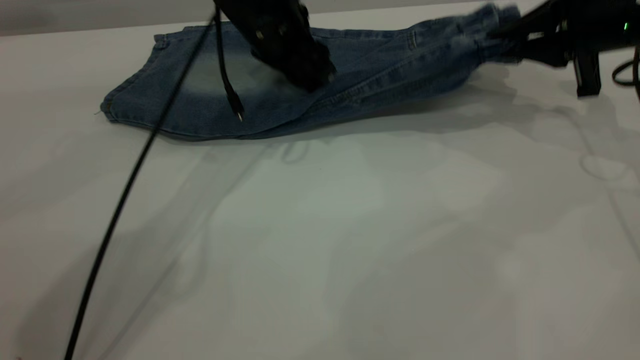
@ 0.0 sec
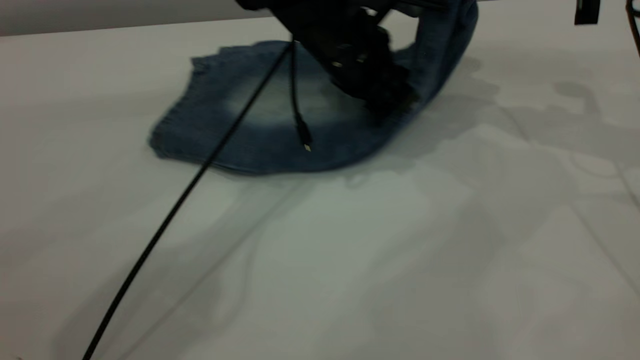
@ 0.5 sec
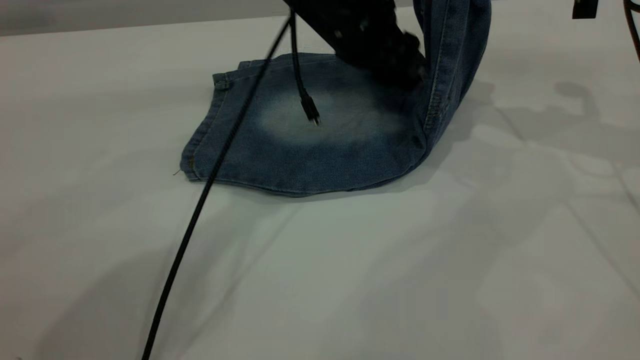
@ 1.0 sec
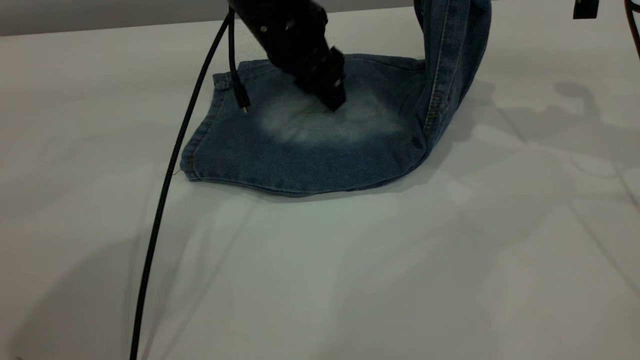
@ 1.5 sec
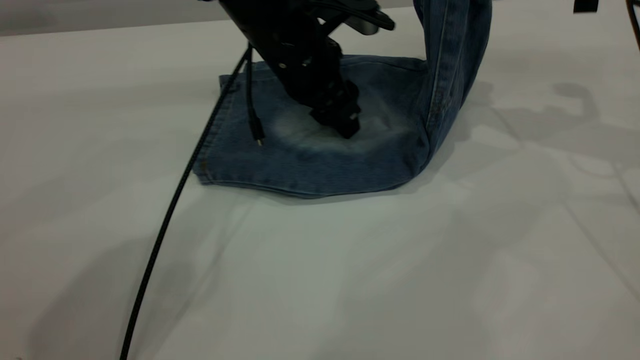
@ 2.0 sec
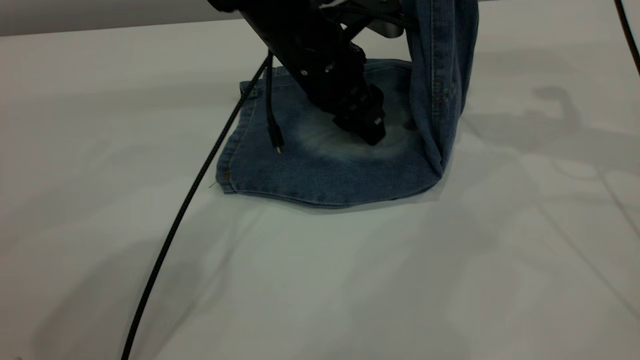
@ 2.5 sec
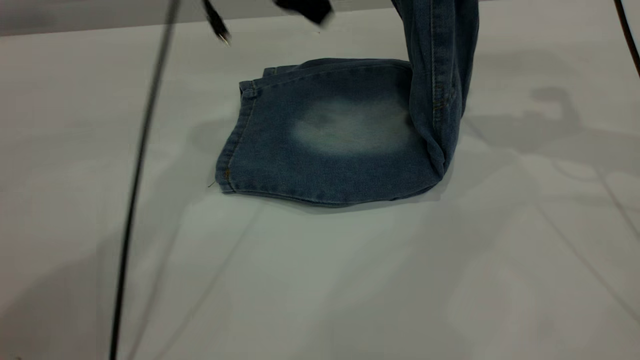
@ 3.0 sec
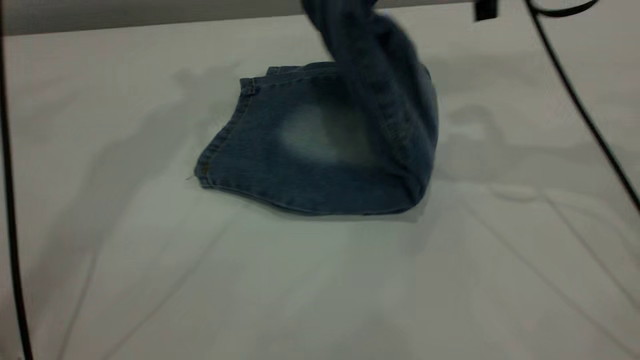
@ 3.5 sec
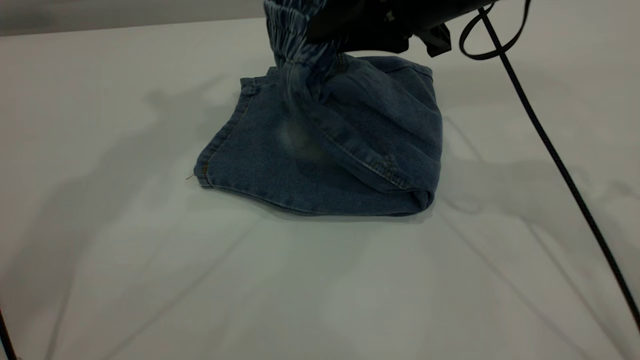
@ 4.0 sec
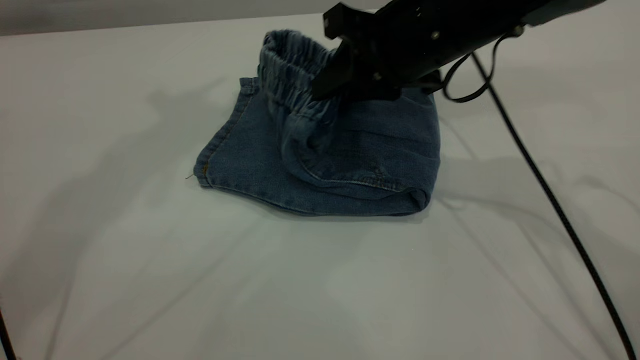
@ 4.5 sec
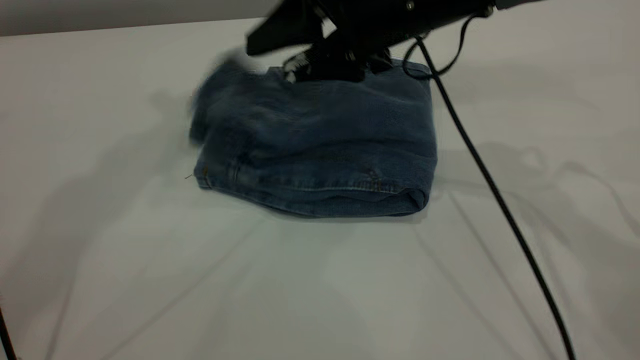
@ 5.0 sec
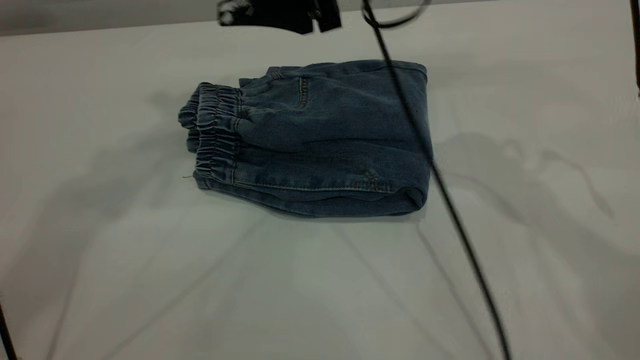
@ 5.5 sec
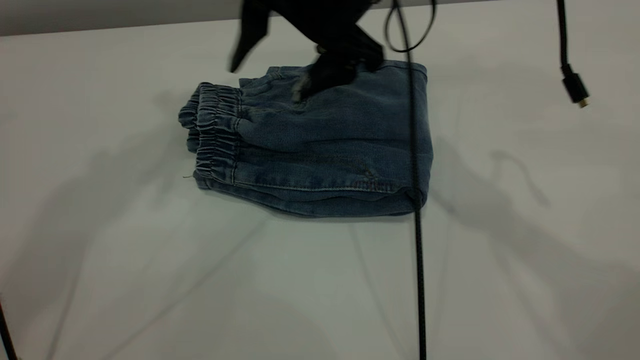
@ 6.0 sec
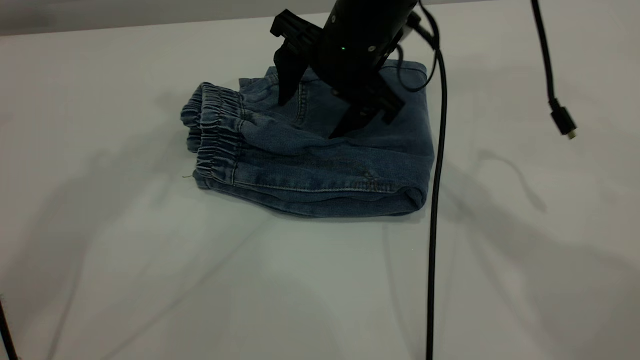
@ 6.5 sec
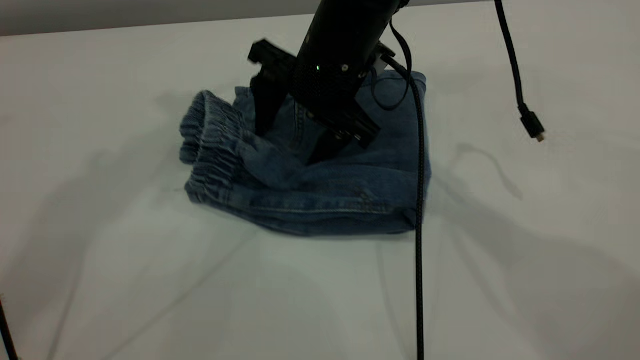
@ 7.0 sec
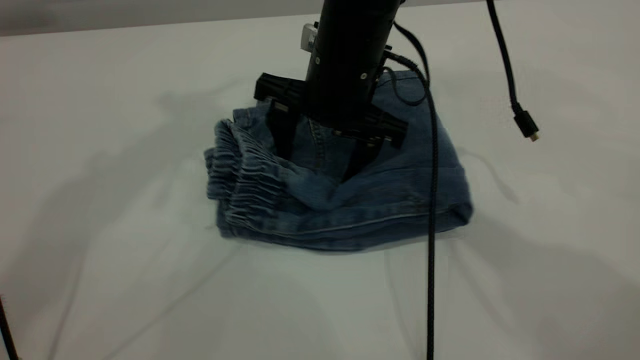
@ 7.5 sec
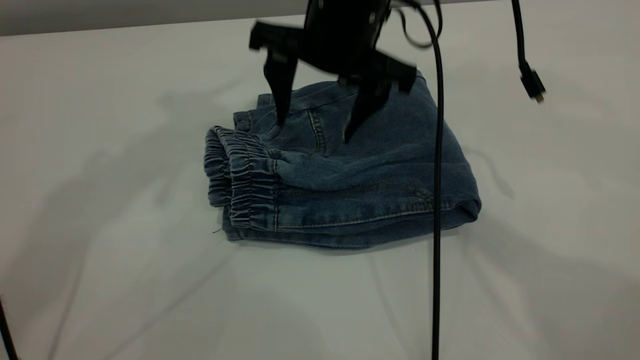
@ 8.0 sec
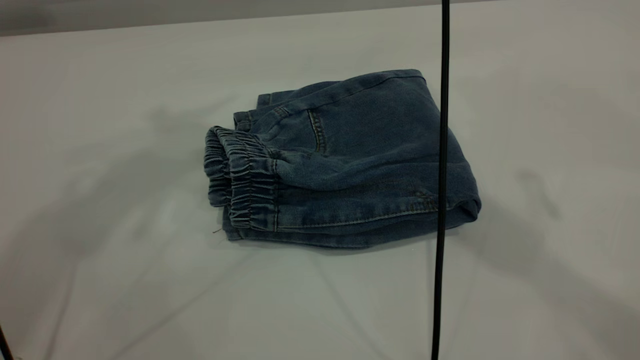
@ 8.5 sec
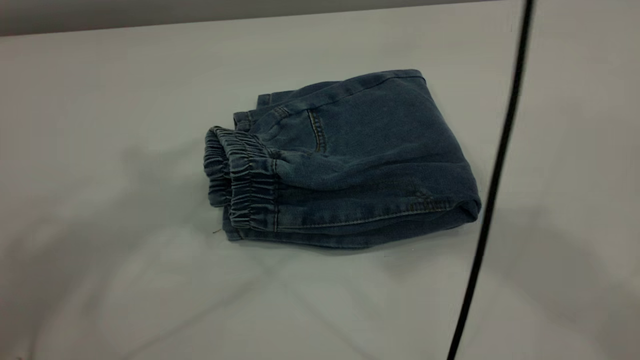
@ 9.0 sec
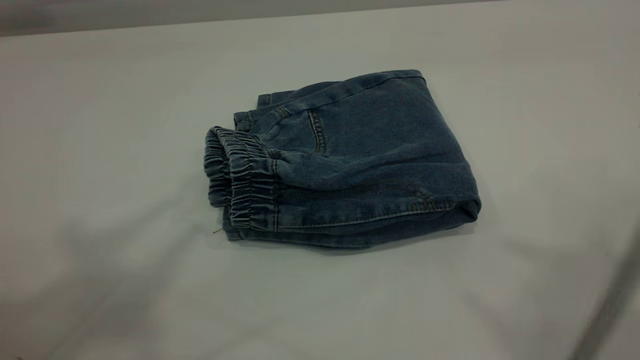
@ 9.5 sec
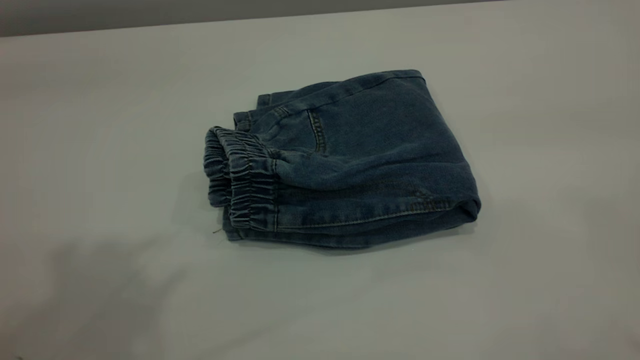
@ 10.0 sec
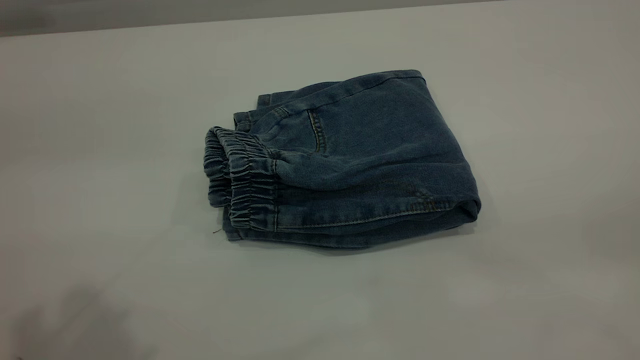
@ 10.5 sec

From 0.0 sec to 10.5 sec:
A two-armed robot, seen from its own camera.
Step, from 0.0 sec to 5.0 sec: Fold your pants from right to left.
From 0.0 sec to 2.0 sec: The right gripper moves upward, some 5 cm.
From 2.0 sec to 4.0 sec: The right gripper is displaced to the left by roughly 15 cm, while the left gripper goes approximately 40 cm upward and to the left.
From 4.0 sec to 6.5 sec: The right gripper moves up and down over about 10 cm, changing direction 2 times, and opens its fingers.
From 6.5 sec to 8.5 sec: The right gripper heads upward, covering some 20 cm, while the left gripper shifts by some 5 cm.
From 8.5 sec to 10.5 sec: The right gripper goes some 40 cm backward and to the right.
